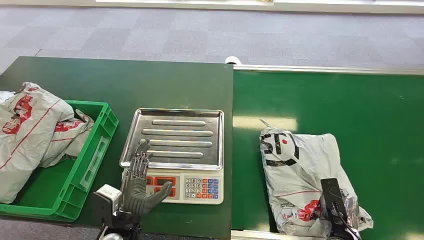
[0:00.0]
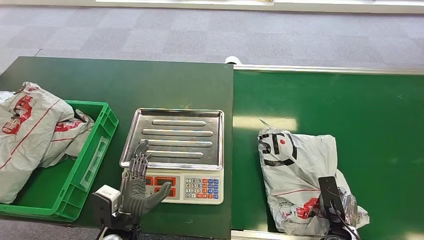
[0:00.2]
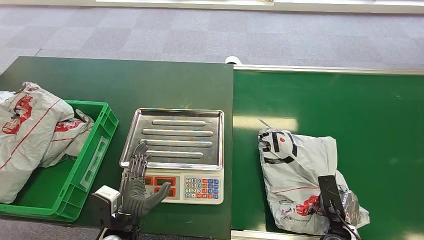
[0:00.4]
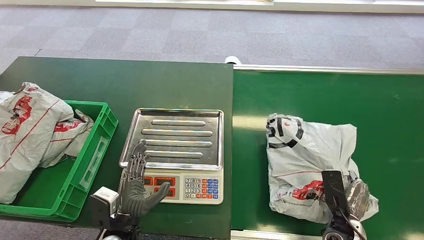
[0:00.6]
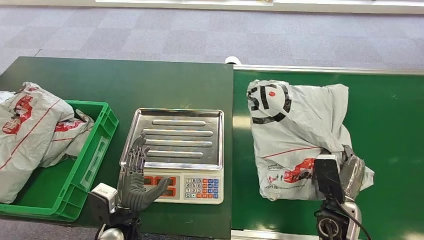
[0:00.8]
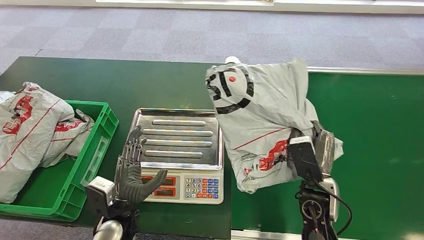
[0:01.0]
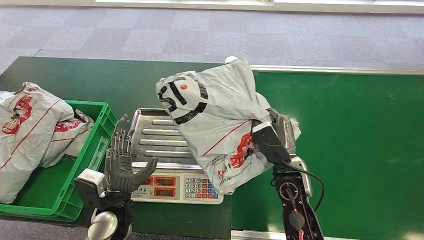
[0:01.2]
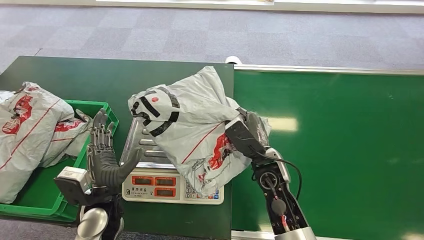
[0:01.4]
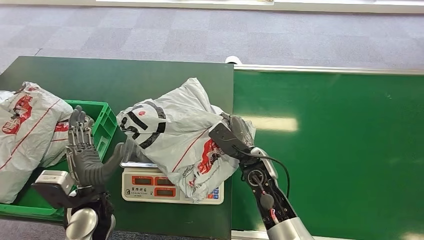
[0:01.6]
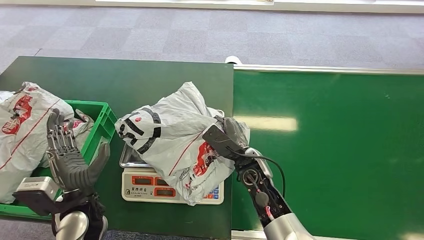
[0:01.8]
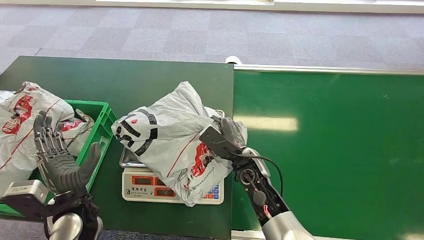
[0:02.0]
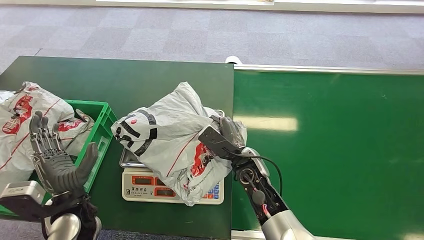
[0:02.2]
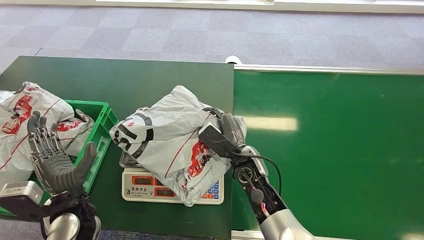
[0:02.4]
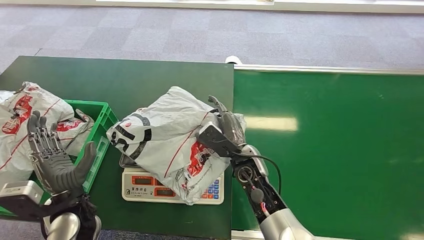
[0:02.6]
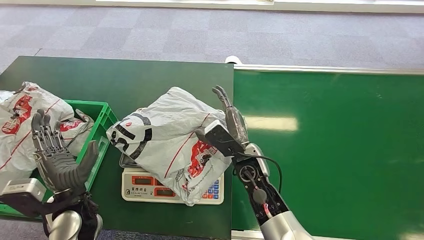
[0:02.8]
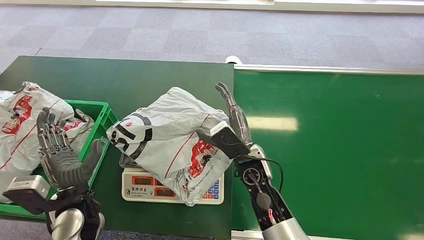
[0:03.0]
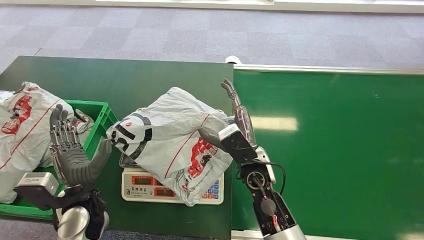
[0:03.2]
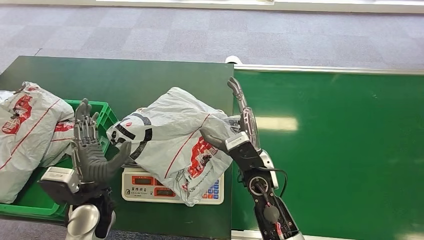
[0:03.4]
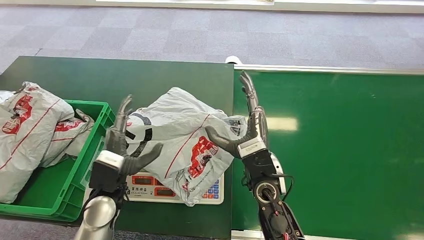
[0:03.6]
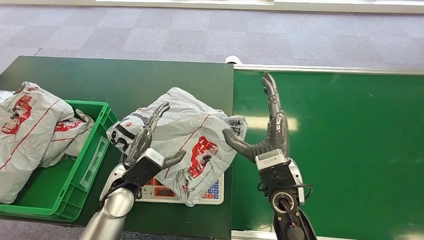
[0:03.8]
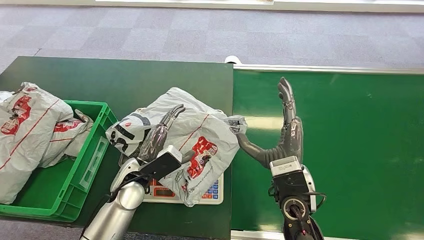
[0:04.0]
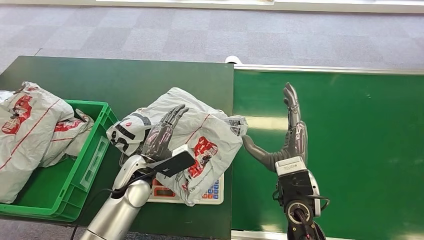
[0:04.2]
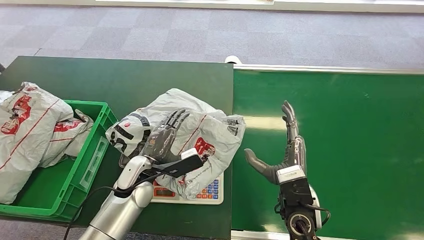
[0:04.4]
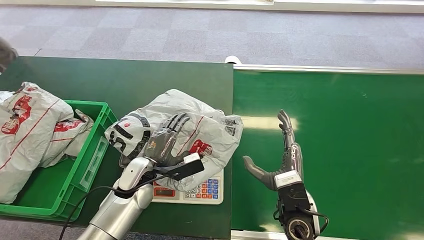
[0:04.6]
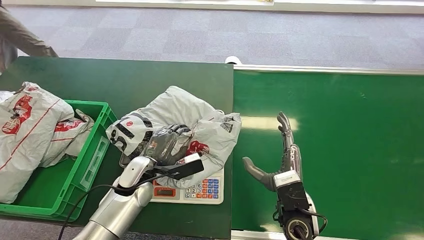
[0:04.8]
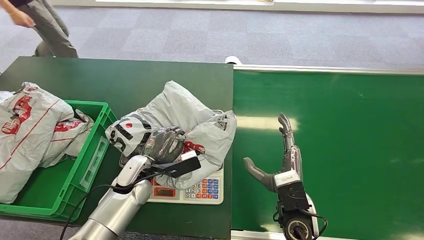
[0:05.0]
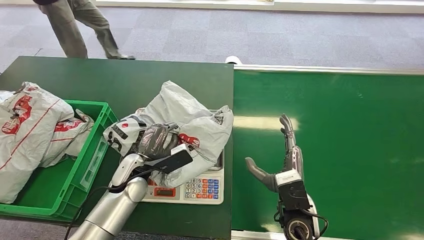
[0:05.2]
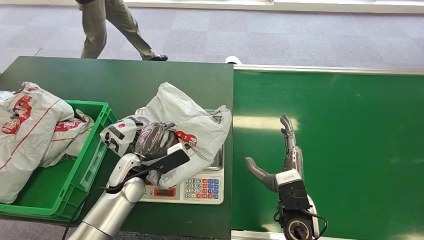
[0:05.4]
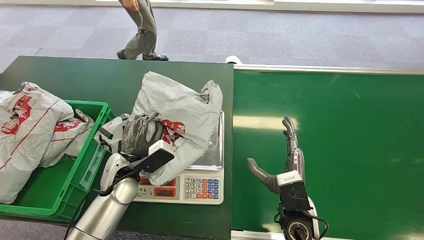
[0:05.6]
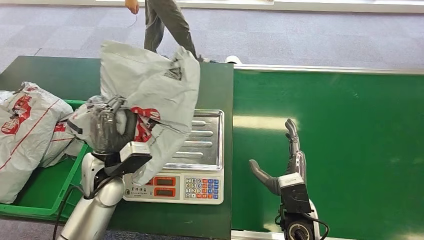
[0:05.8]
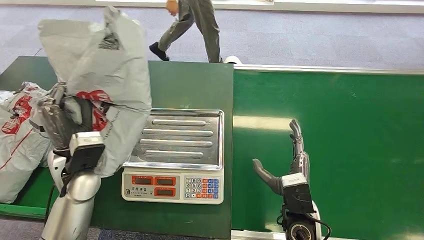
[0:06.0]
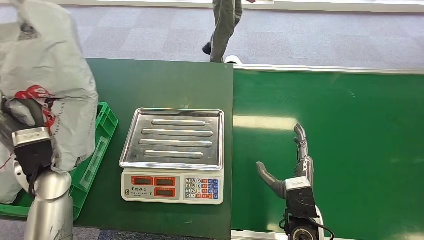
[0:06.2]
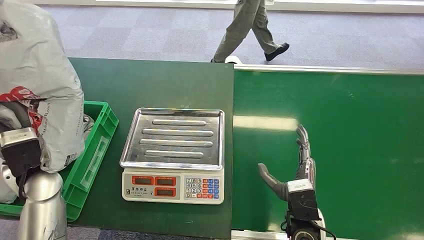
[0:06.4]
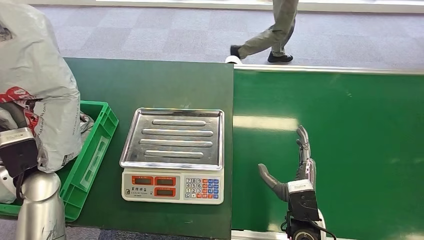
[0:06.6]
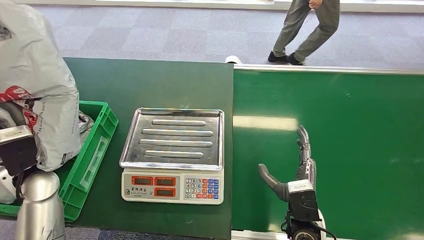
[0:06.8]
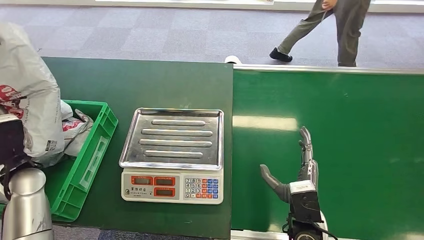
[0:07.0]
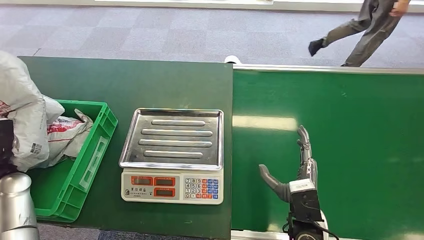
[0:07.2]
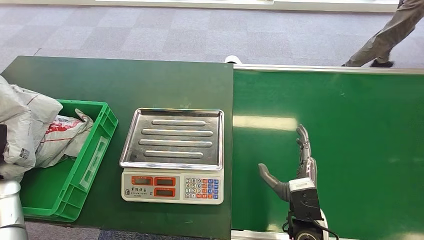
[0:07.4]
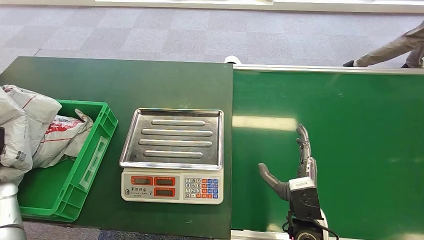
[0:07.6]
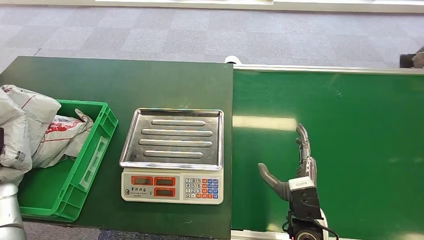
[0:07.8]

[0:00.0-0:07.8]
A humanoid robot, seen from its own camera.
Step, 0:00.0 to 0:00.8: Pick up the package from the conveyor belt.
Step, 0:01.0 to 0:02.6: Place the package onto the inbound machine.
Step, 0:05.2 to 0:06.0: Pick up the package from the inbound machine.
Step, 0:06.6 to 0:07.8: Place the package into the parcel locker.
0:03.2 to 0:04.6: The right hand moves backward and to the right, some 10 cm. Meanwhile the left hand is displaced to the right and forward by some 10 cm.
0:06.2 to 0:07.8: The left hand travels to the left and downward by approximately 25 cm.
